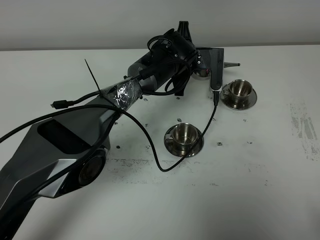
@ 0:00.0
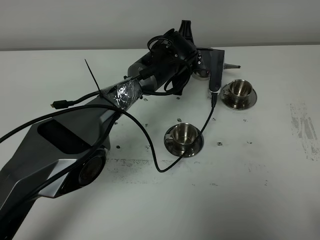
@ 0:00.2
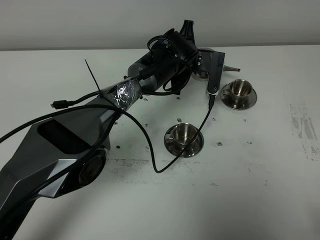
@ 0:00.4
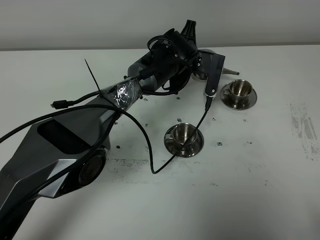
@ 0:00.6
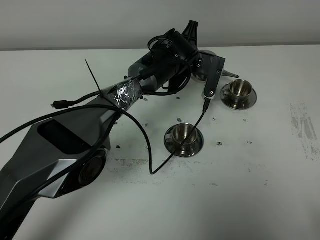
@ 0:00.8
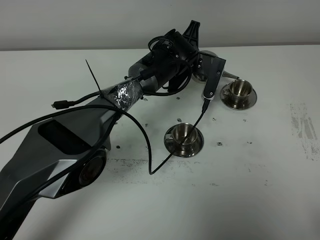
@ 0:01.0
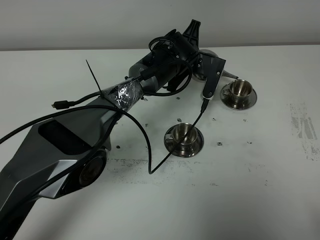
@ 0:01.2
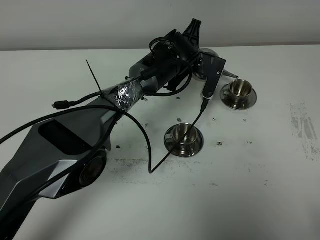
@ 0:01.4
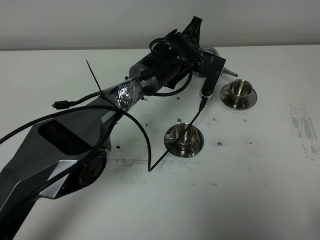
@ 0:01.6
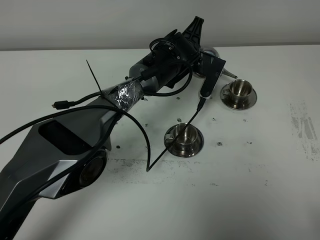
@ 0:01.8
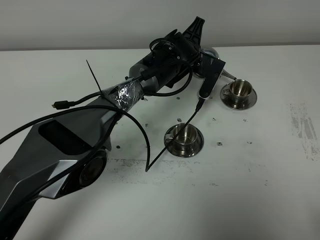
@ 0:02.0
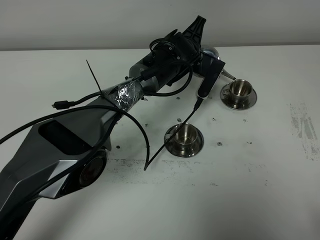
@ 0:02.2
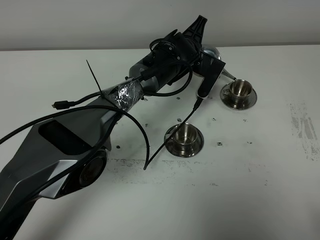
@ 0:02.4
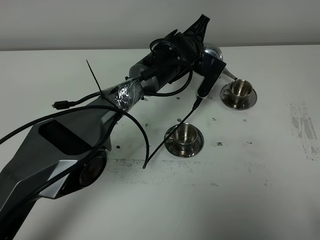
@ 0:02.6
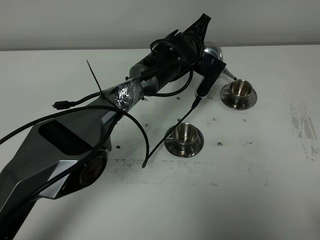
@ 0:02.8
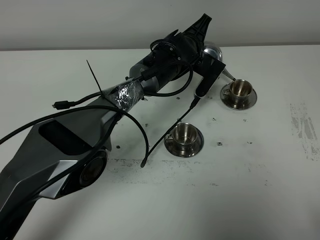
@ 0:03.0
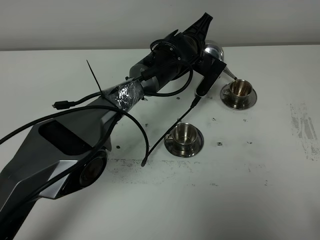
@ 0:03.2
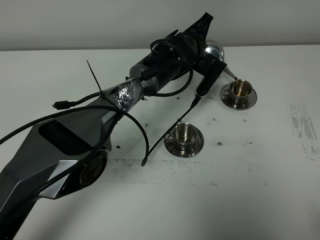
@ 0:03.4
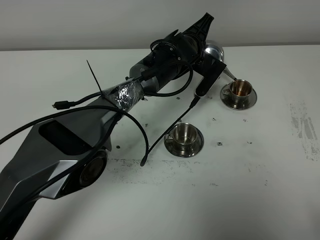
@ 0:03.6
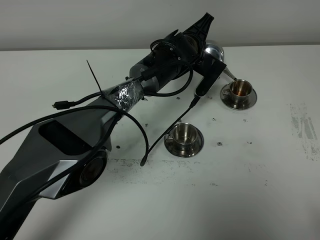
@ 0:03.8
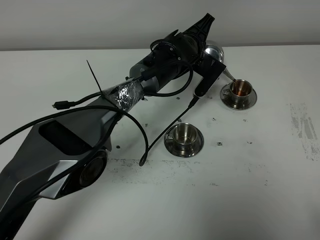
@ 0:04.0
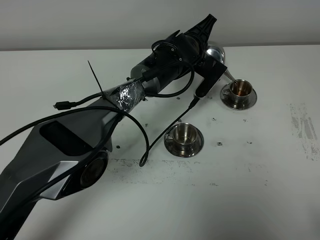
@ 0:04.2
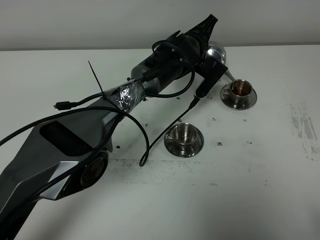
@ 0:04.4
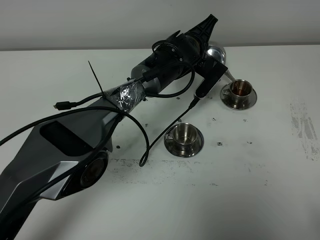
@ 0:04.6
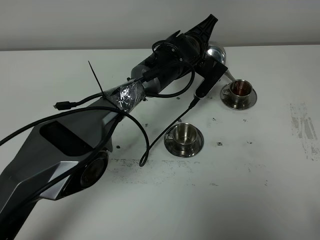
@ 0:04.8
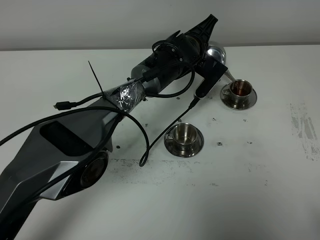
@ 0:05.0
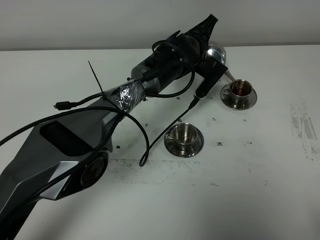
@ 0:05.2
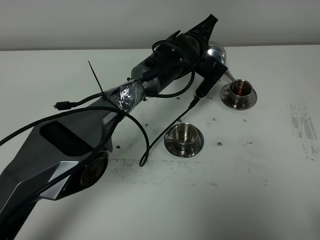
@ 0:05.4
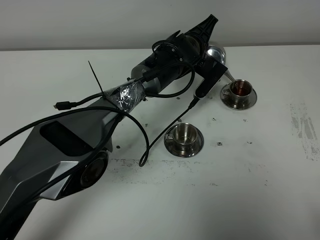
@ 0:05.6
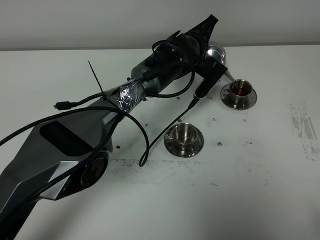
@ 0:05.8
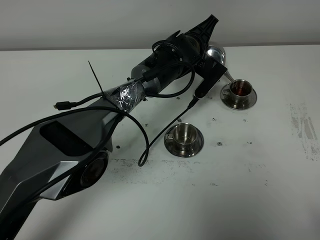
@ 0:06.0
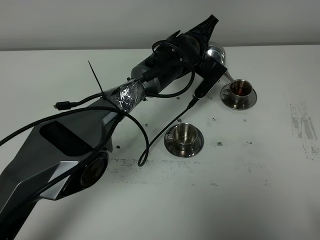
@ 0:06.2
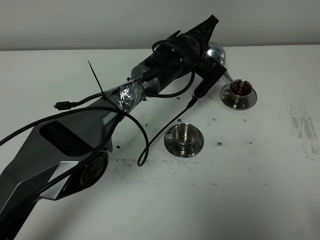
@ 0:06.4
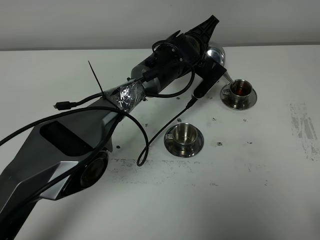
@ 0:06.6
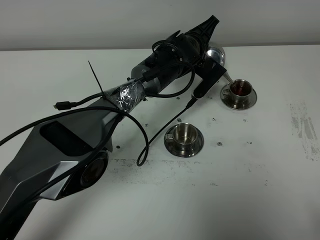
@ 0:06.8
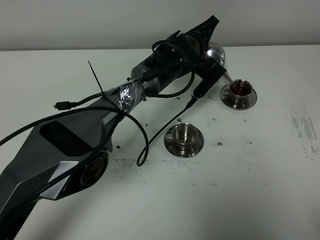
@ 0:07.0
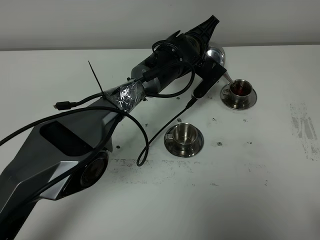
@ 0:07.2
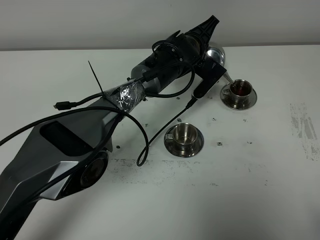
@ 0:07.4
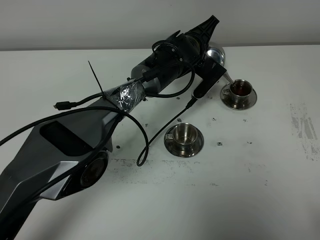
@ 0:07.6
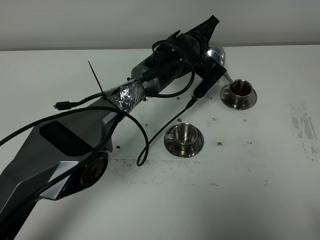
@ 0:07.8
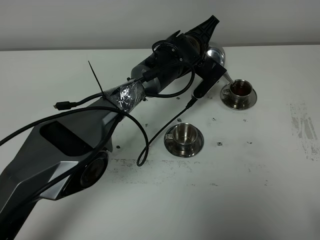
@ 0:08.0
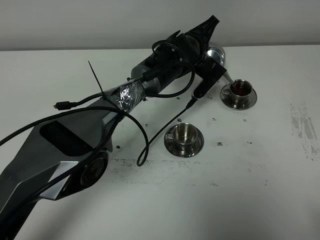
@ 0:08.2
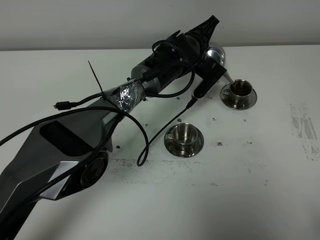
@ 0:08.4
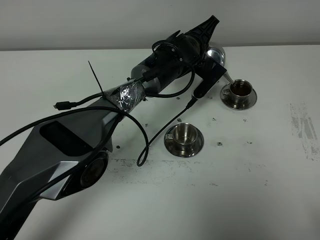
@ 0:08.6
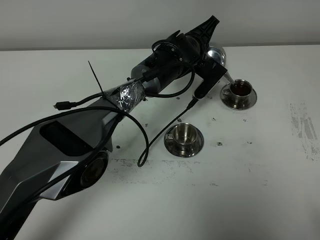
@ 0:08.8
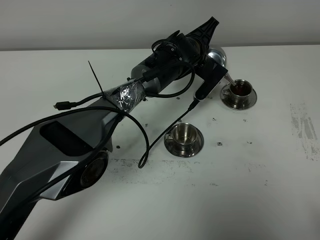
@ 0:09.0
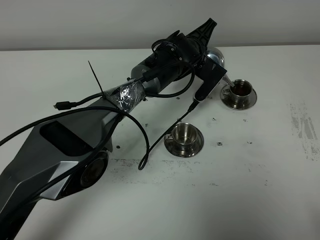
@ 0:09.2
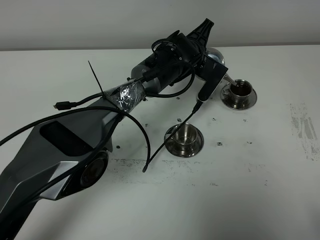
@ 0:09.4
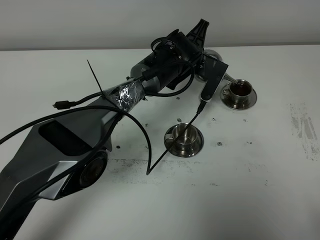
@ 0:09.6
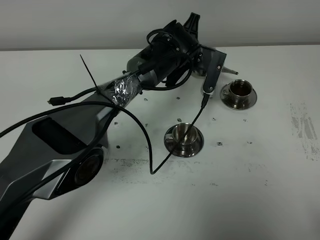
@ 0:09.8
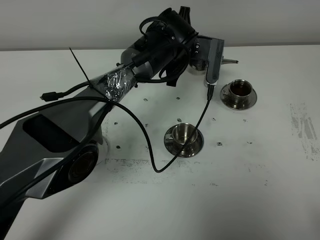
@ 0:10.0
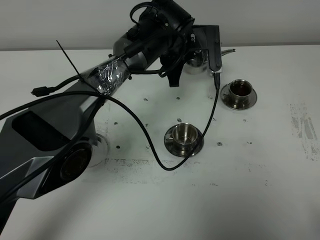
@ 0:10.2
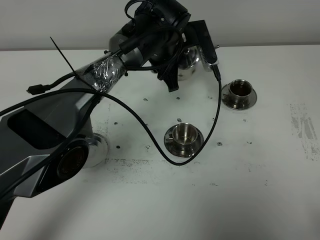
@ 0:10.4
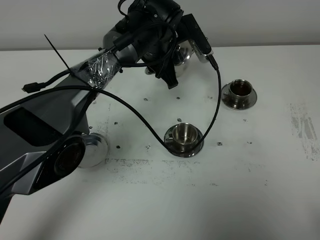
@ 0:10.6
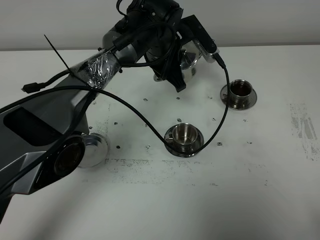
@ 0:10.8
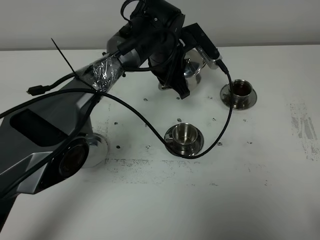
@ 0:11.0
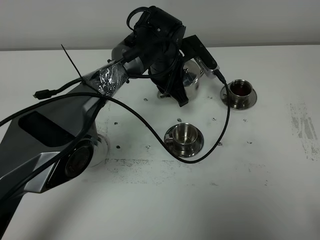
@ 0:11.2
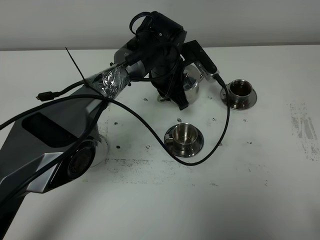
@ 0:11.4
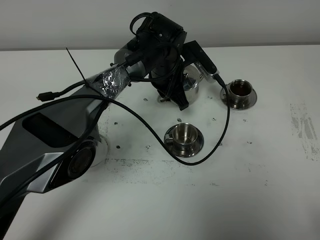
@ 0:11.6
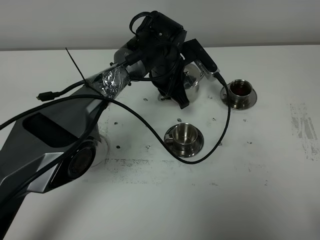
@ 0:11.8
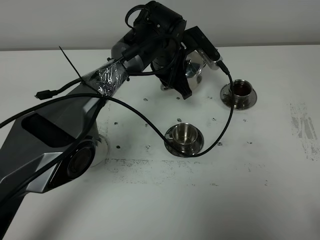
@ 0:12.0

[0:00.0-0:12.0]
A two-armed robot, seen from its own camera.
Task of the whole recording: grasp the stainless steel teapot and pour the tea into the two stainless steel teacups one by one, put the stainless steel teapot back in its original place.
0:01.6 to 0:03.0: The grippers stay close to where they were, moving slightly.
0:03.0 to 0:04.4: Both grippers stay about where they are.
0:04.4 to 0:09.0: Both grippers stay about where they are.
0:09.0 to 0:10.4: The left gripper is displaced upward and to the left by about 5 cm.
0:10.4 to 0:12.0: There are only small adjustments of the grippers.

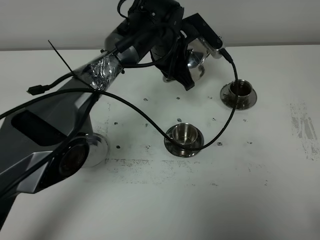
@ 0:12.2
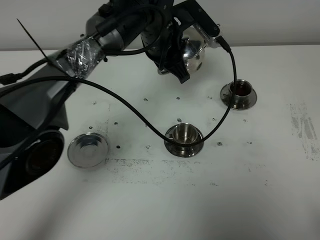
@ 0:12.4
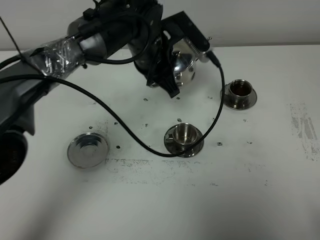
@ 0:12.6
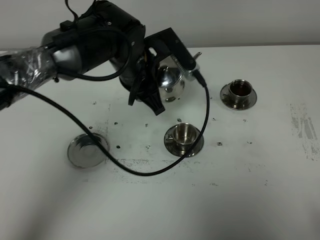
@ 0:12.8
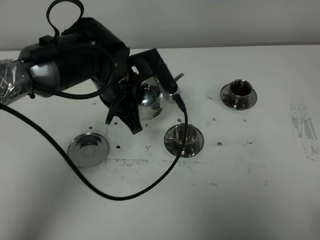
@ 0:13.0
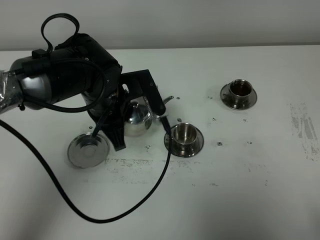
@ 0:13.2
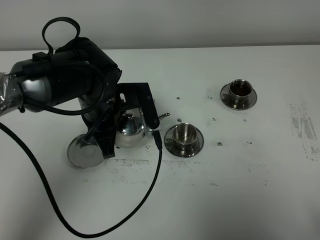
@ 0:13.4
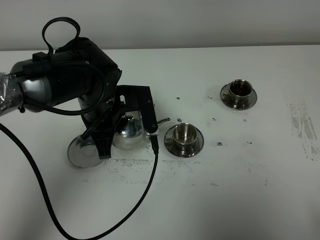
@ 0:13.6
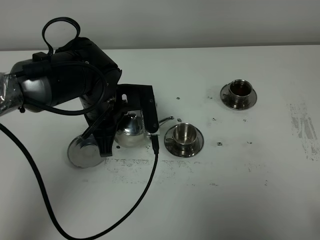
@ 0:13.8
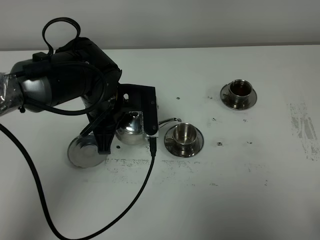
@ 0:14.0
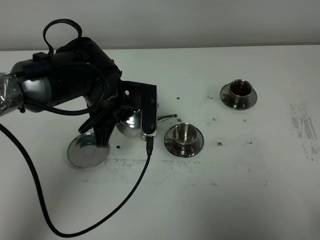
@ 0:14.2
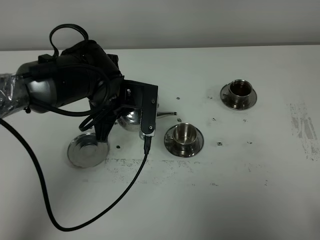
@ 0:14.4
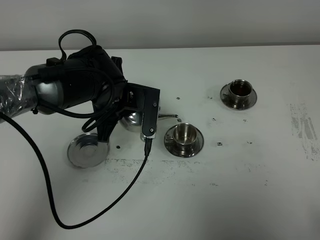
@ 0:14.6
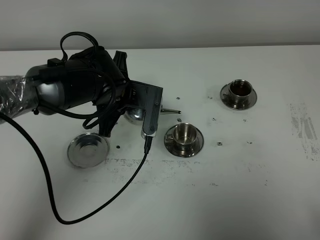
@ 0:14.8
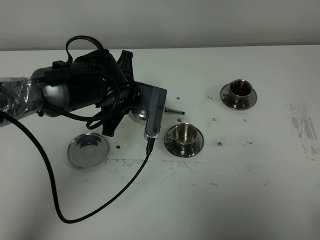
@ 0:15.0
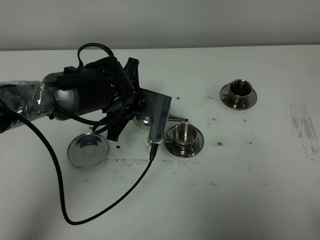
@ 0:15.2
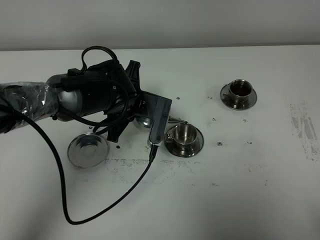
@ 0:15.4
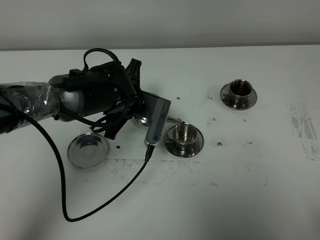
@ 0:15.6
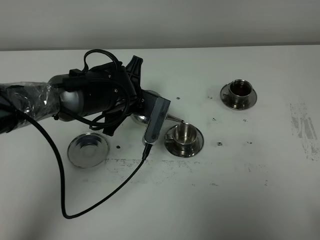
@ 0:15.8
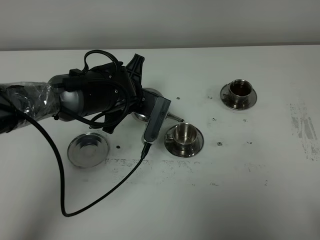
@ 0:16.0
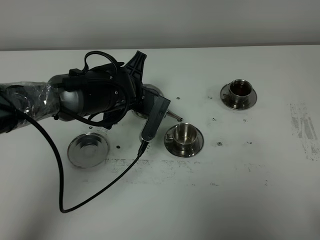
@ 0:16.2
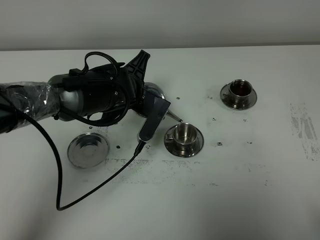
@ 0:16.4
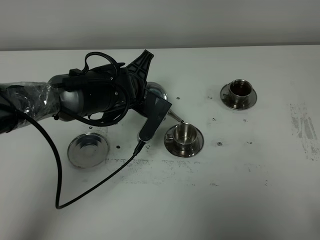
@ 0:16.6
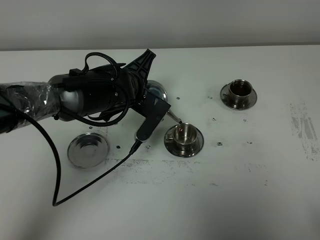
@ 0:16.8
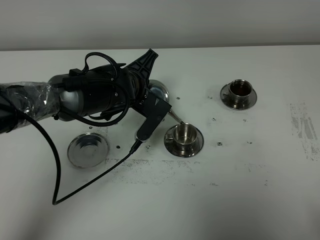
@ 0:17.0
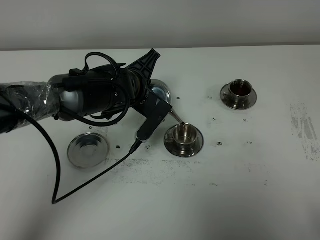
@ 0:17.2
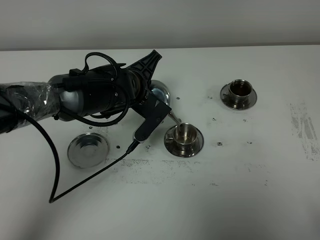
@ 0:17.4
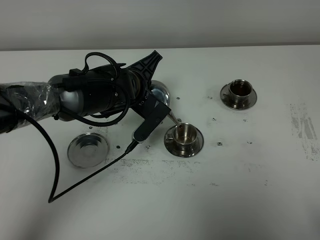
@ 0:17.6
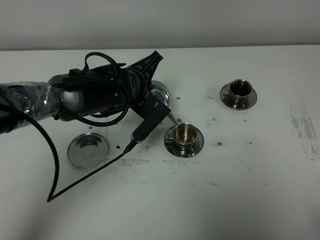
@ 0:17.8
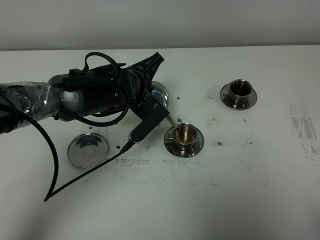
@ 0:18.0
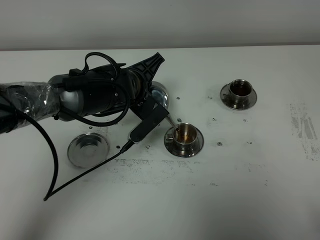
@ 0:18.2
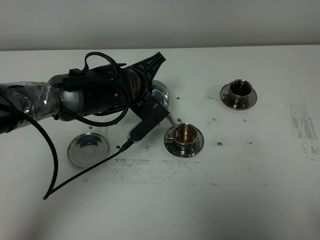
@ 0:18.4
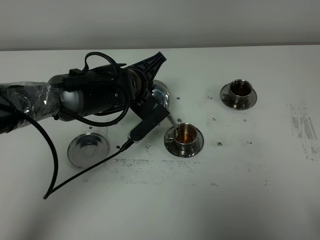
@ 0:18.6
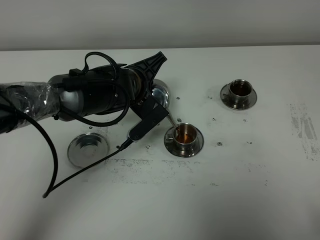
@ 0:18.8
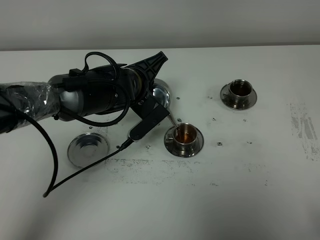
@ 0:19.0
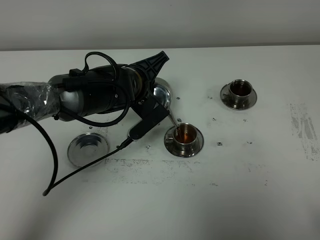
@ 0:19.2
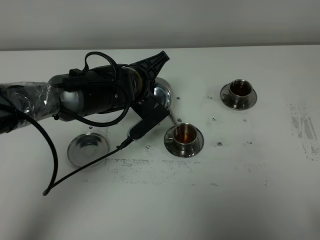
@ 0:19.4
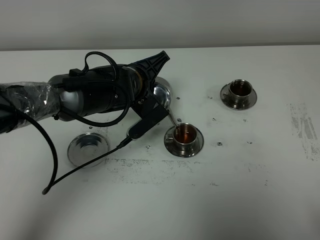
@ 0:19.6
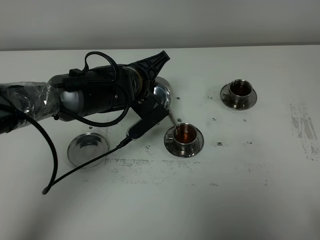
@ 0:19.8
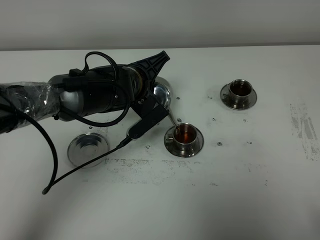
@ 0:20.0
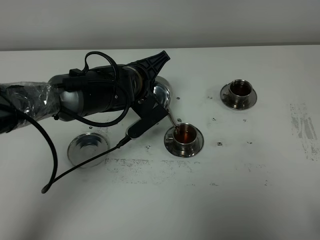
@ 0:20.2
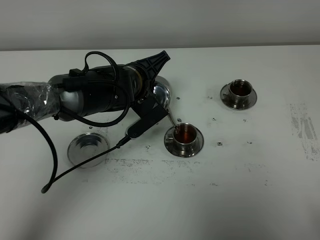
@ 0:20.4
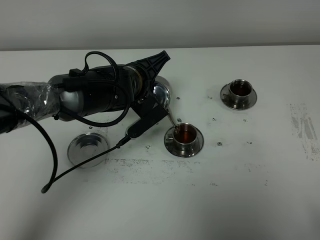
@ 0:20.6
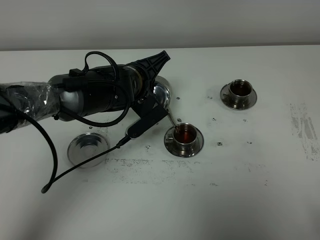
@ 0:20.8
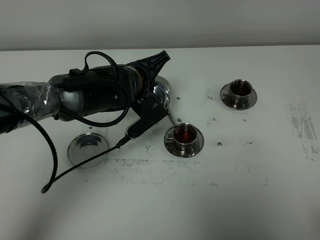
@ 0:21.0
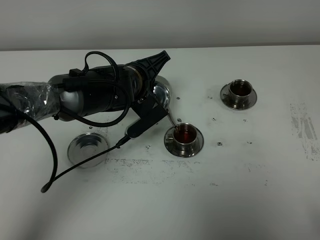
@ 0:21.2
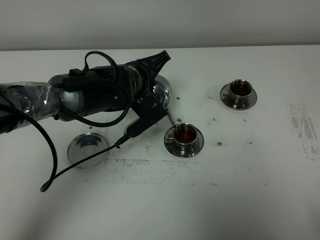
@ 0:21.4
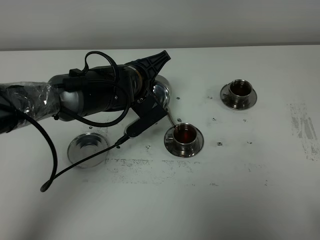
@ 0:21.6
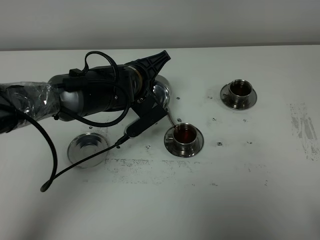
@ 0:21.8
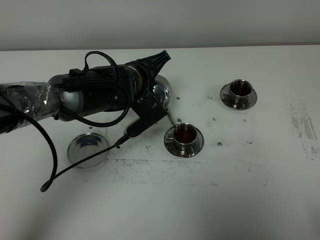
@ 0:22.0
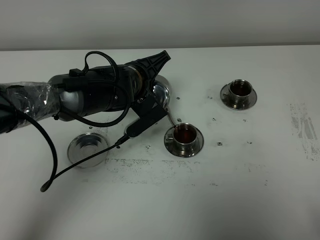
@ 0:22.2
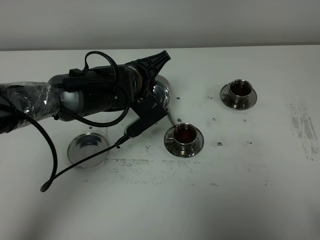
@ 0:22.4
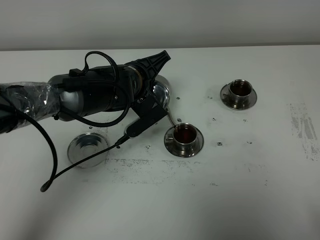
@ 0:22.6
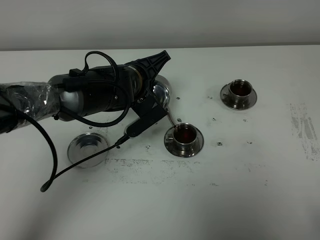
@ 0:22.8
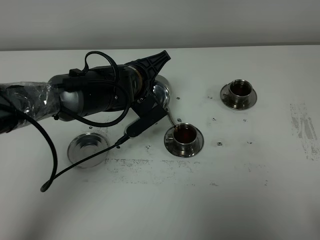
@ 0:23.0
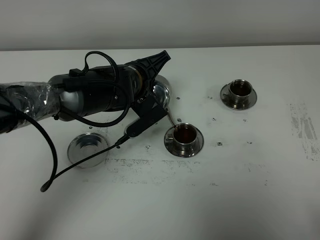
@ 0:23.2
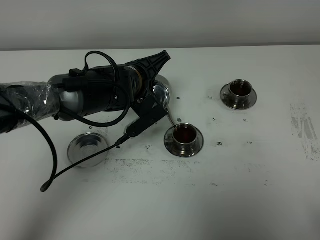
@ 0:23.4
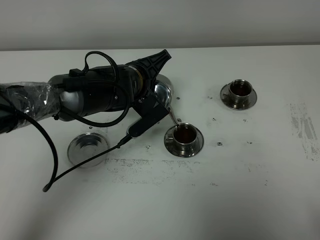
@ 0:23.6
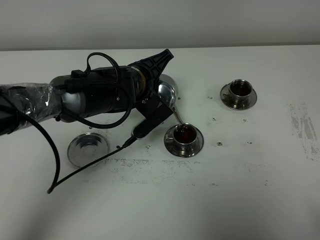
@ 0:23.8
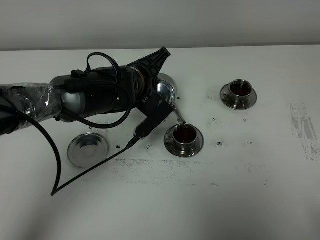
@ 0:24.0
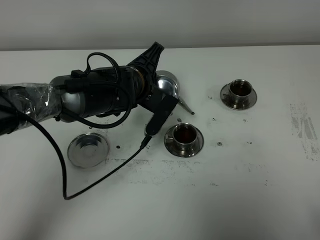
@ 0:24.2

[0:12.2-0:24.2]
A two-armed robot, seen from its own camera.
Task of the whole recording: grasp the stainless steel teapot and pour the tea into the two stainless steel teacups one by one, put the stainless steel teapot back in its original place.
Step, 0:12.2 to 0:24.0: Pour tea into the teacup with the left gripper.
0:12.2 to 0:13.8: The left gripper is displaced backward and to the left by about 15 cm.
0:16.6 to 0:18.2: There are only small adjustments of the grippers.
0:18.2 to 0:19.8: There are only small adjustments of the grippers.
0:19.8 to 0:22.6: Neither gripper changes place.
